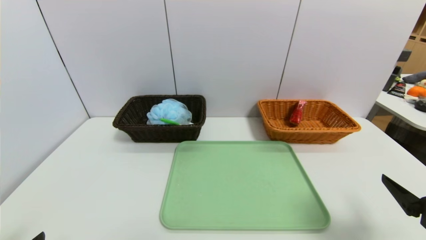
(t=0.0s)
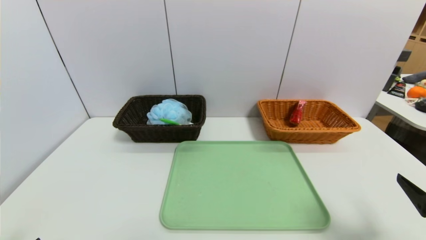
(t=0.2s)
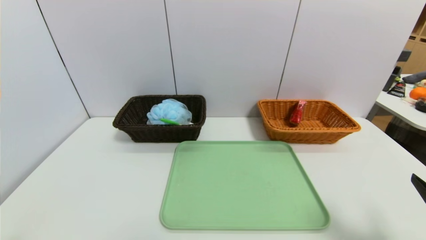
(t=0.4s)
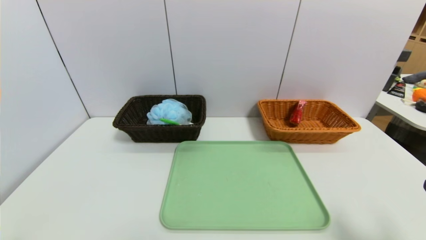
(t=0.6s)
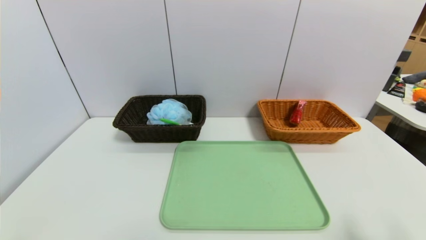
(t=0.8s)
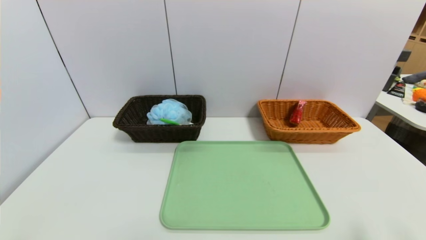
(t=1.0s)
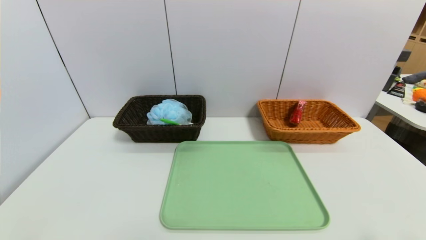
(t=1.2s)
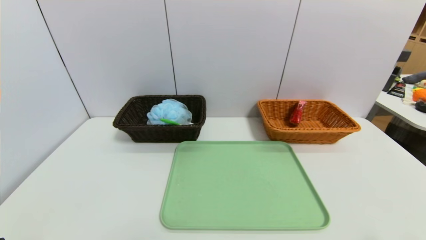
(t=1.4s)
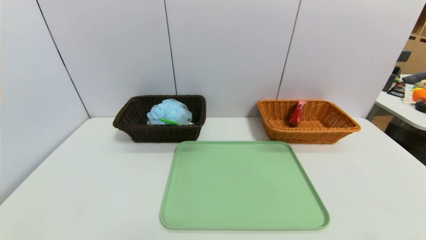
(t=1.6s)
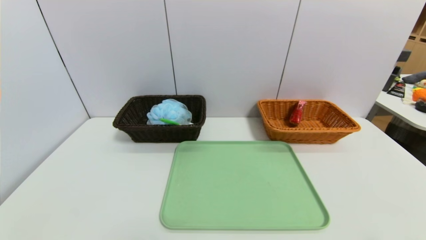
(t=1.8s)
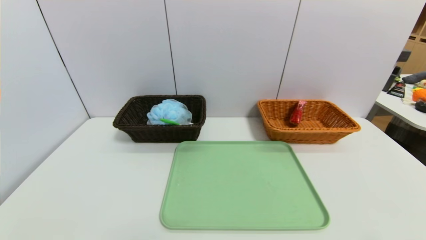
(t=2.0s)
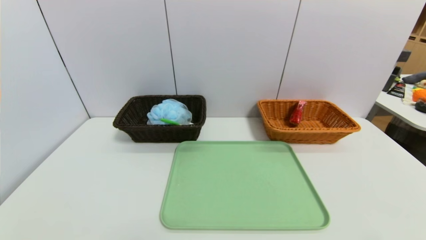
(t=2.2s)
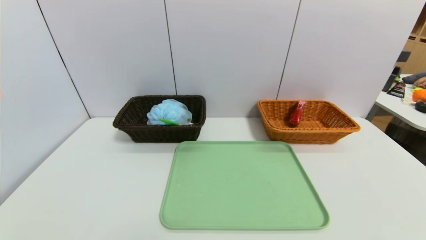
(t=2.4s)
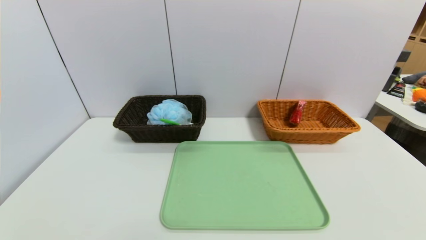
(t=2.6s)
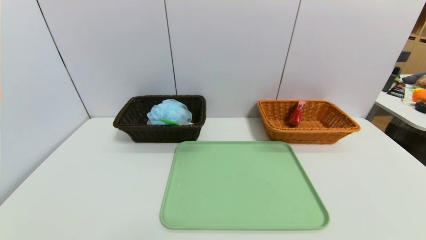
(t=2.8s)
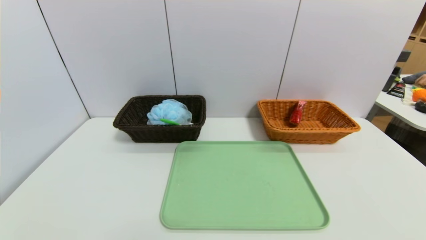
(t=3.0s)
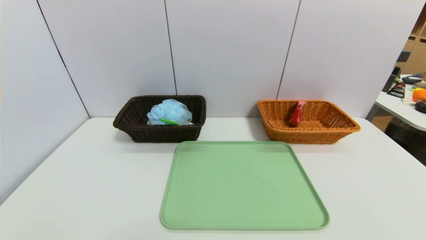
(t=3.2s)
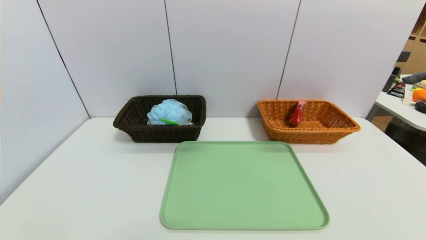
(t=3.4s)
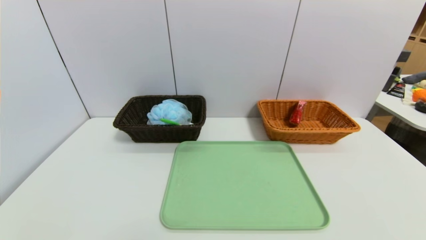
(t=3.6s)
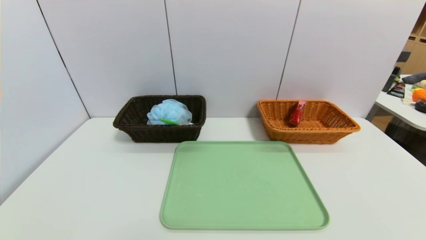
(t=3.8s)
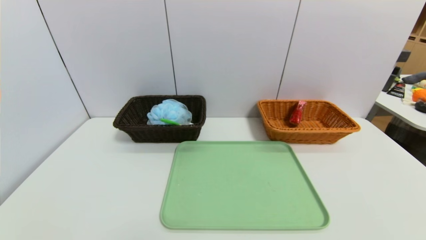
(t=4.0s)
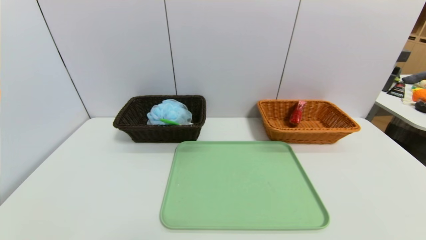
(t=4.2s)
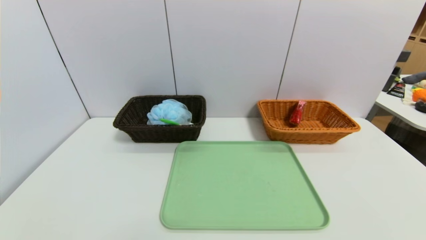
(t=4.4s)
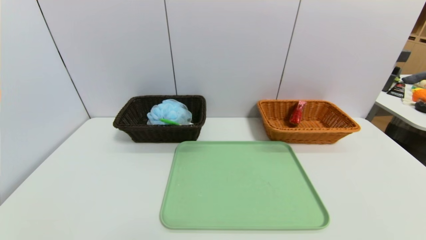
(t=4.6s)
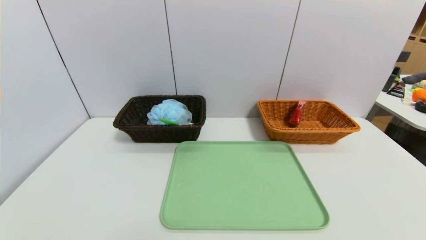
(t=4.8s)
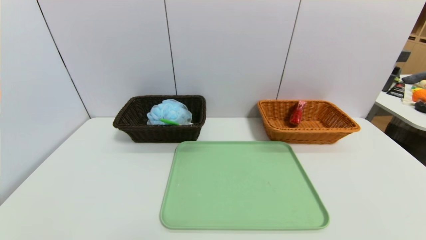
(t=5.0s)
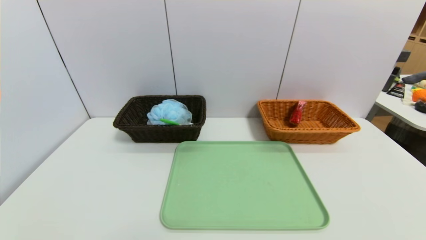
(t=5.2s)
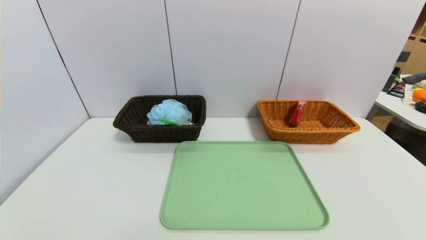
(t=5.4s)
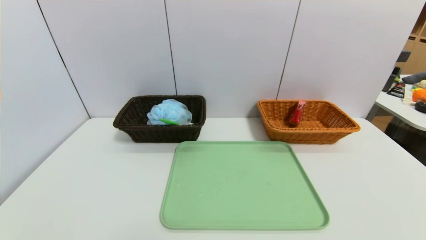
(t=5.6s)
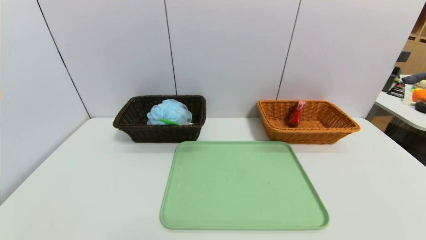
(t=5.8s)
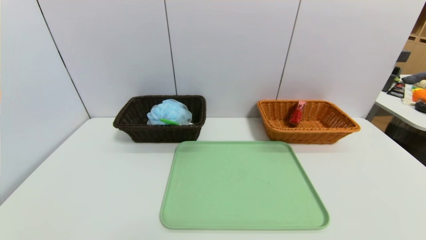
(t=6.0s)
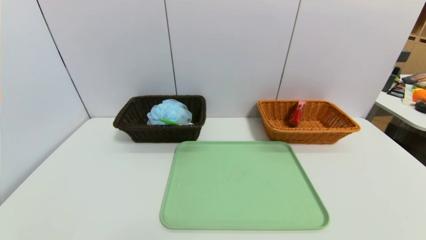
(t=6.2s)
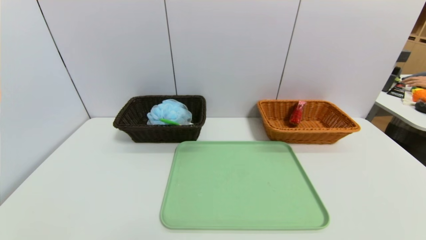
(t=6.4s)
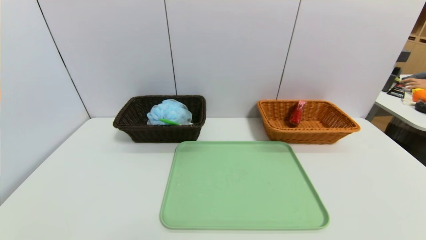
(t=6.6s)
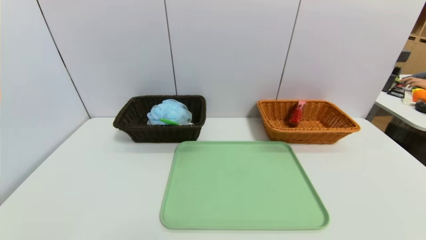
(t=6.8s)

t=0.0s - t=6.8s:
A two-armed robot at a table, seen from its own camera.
Task of the whole recording: place the food in the right basket with the right gripper, and place the non food items in the left basket with the left gripper.
t=0.0s - t=1.4s: The right gripper moves backward, roughly 10 cm.
